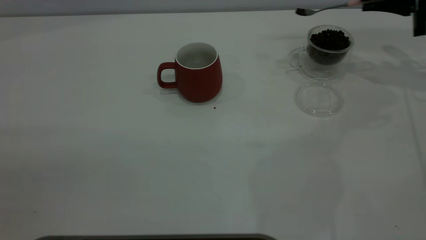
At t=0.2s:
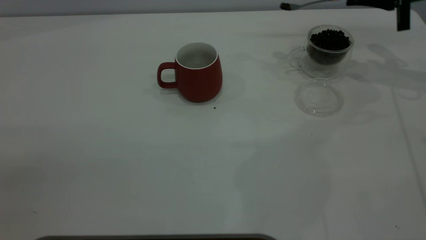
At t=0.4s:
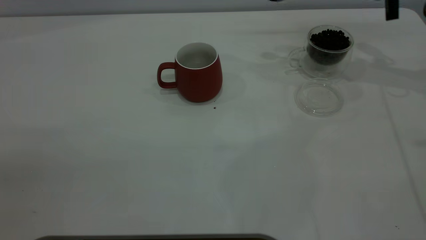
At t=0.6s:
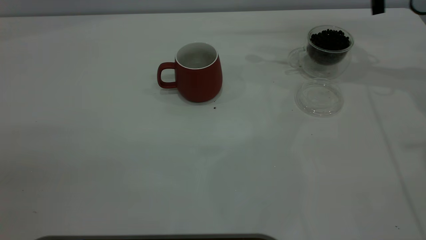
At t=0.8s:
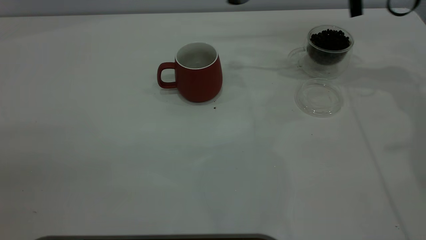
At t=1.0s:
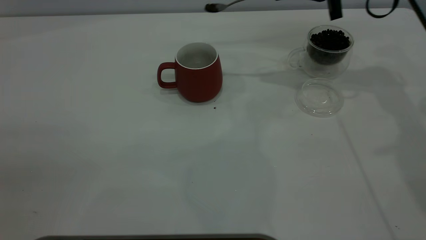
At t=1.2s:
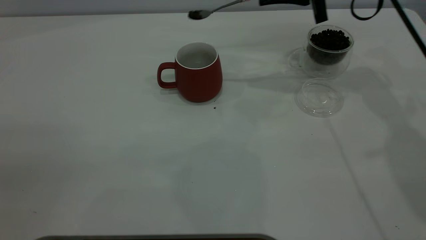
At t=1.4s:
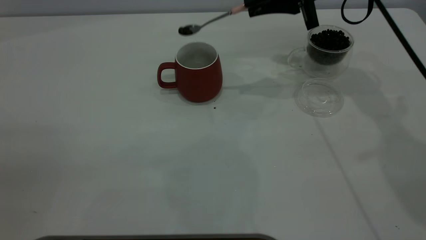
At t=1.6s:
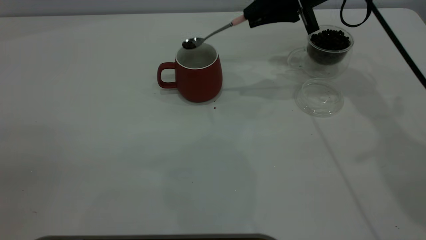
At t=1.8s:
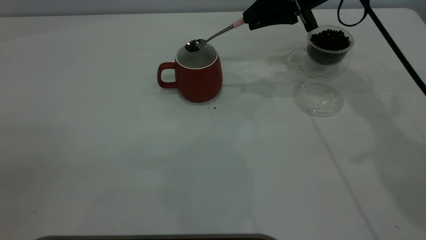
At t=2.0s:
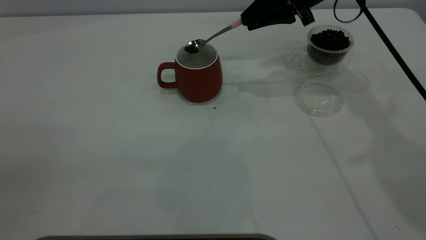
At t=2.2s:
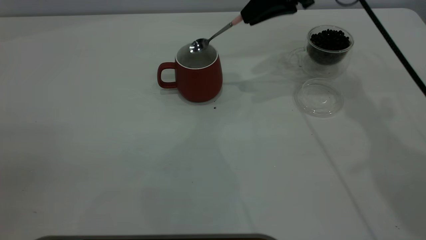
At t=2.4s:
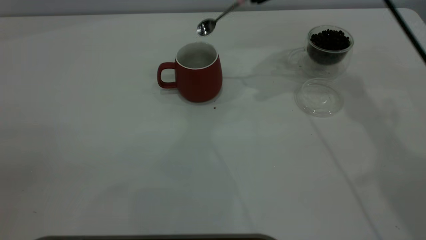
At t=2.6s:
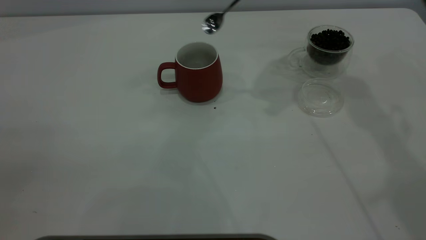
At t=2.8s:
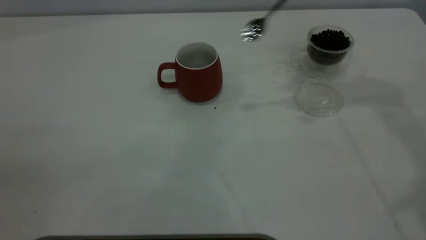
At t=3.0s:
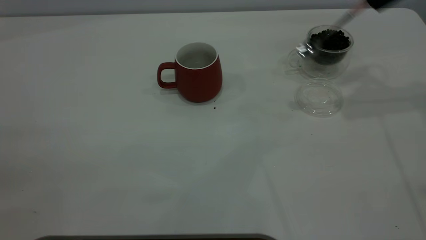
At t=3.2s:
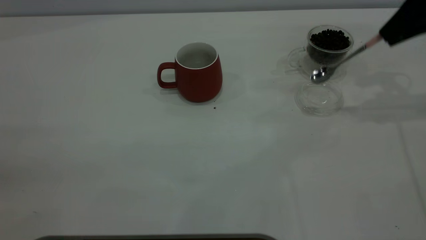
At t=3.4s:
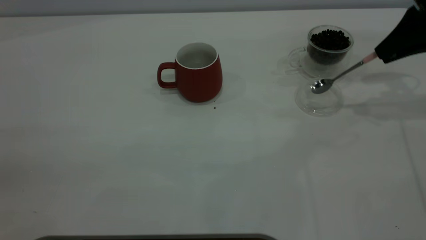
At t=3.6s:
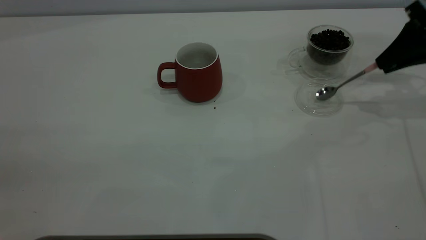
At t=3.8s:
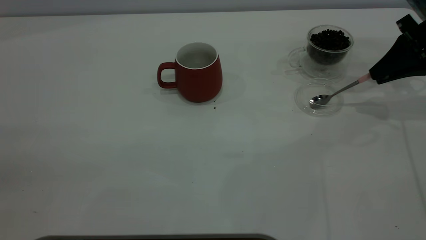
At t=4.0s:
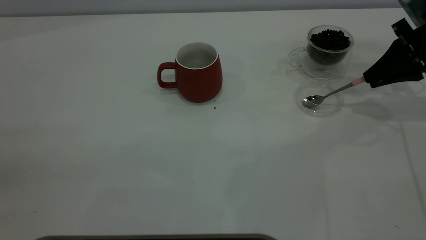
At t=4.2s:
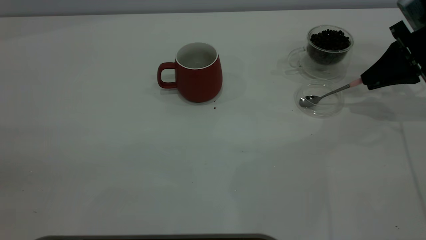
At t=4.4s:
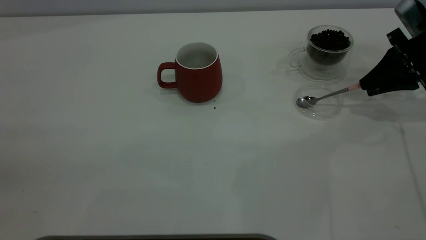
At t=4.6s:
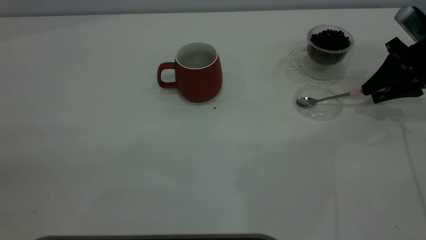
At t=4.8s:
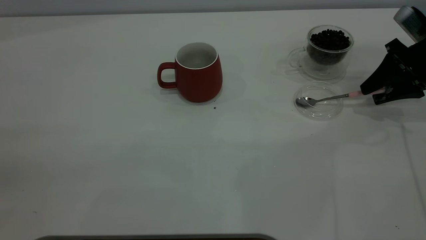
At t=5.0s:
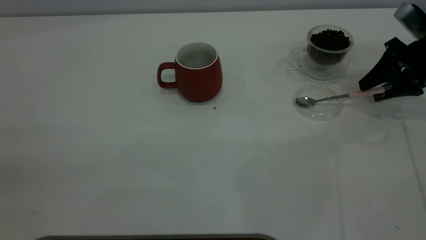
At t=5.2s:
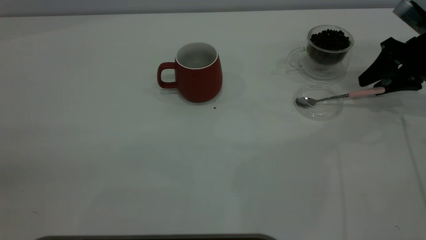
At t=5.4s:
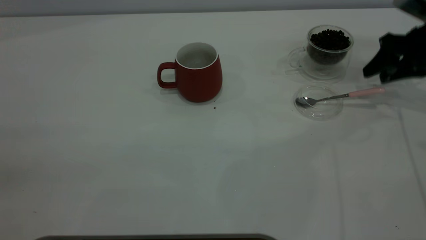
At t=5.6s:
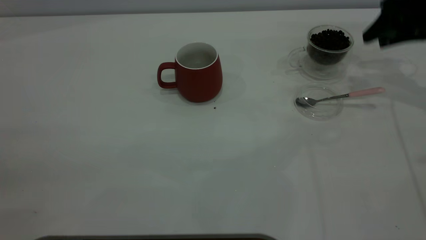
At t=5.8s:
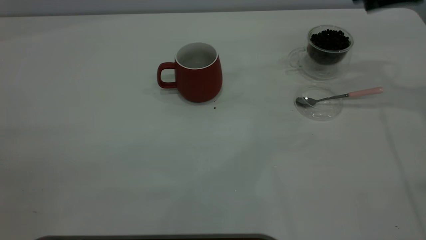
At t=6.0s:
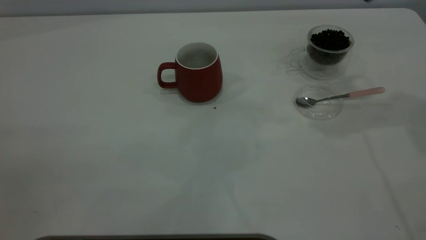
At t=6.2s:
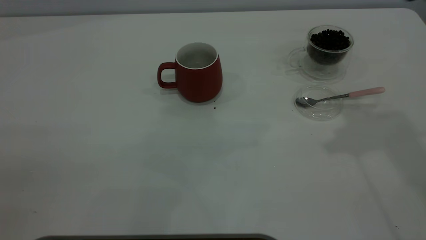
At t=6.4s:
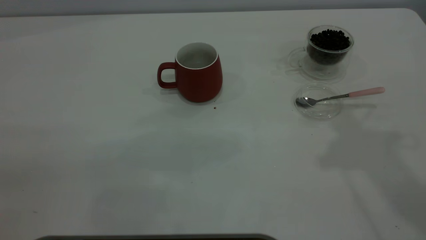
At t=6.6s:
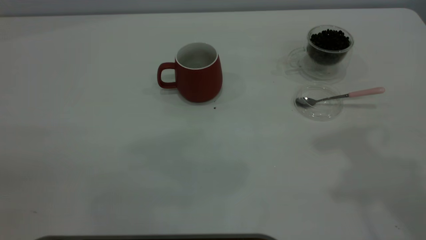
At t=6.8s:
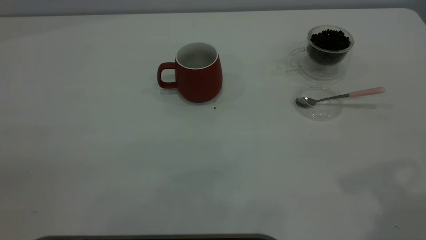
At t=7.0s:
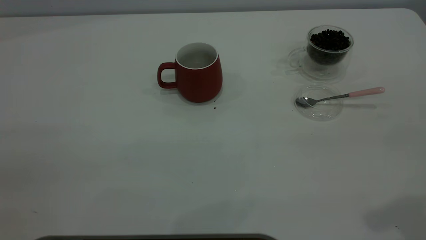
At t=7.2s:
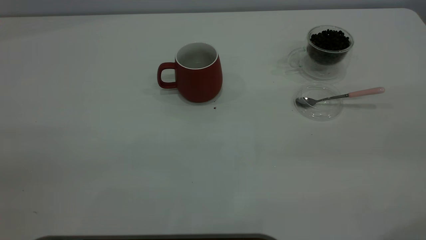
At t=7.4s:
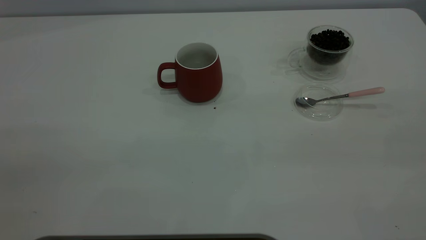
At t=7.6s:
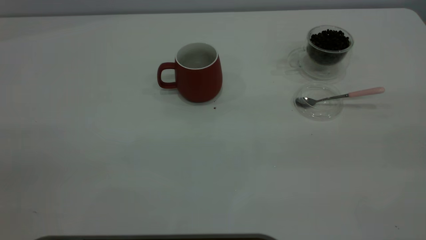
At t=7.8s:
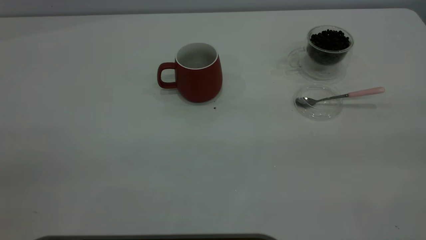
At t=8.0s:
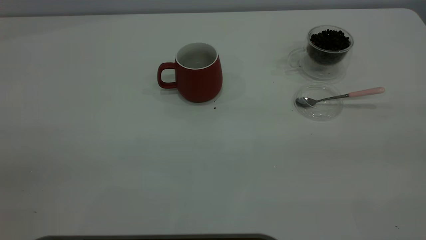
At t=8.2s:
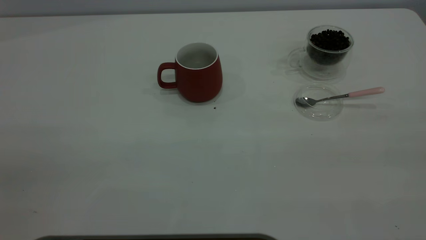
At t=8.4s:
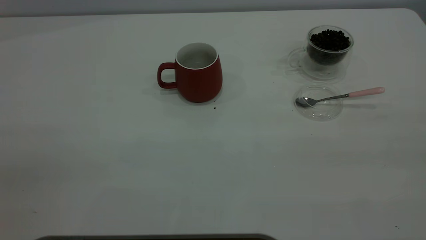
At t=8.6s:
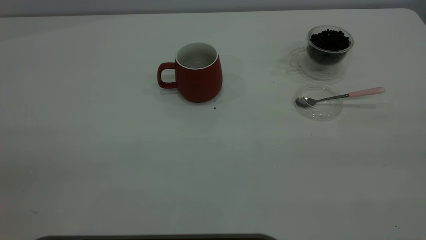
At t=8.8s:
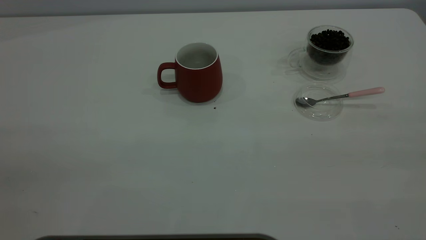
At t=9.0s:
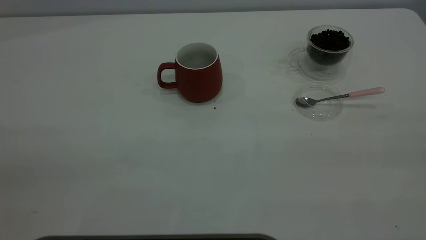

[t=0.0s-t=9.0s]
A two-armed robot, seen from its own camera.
Task of the whole recording: the left gripper place the red cup in the center of the table, the right gripper take the pink spoon from the cup lid and scoop out the coffee beans from the coffee cup and put them into the red cup, the right gripper put the spoon back into the cup lid.
Step, t=0.0s to t=2.2s: Scoop a spoonful of beans into the cup.
Step, t=2.4s to t=5.2s: Place the spoon back in its original place.
t=0.0s to t=1.6s: The right gripper goes about 20 cm to the left.
t=1.6s to t=3.0s: The right gripper travels to the right and upward by approximately 15 cm.
t=3.0s to t=4.4s: The right gripper shifts about 15 cm downward.
t=4.4s to t=6.0s: The right gripper shifts about 25 cm upward and to the left, and opens.
